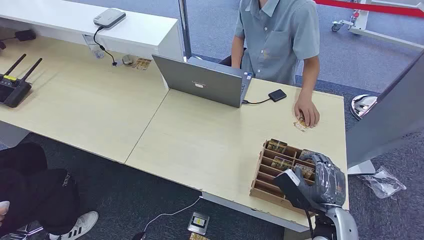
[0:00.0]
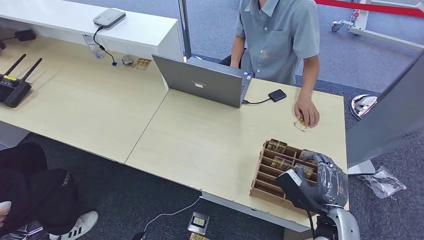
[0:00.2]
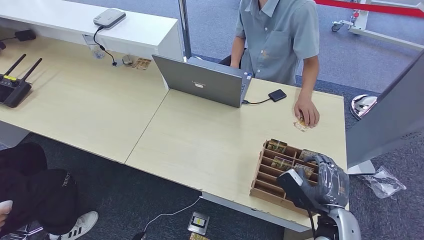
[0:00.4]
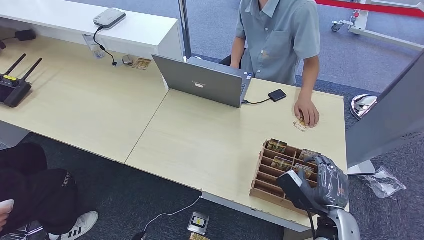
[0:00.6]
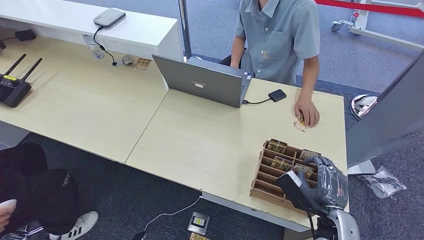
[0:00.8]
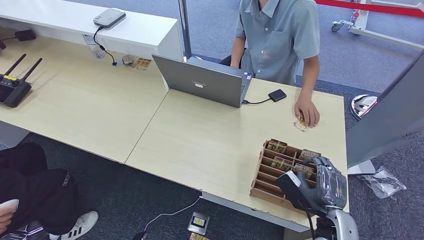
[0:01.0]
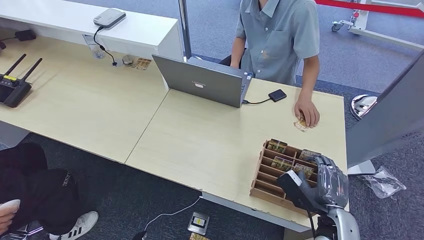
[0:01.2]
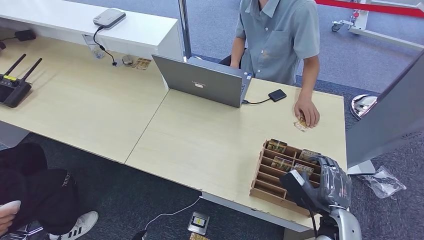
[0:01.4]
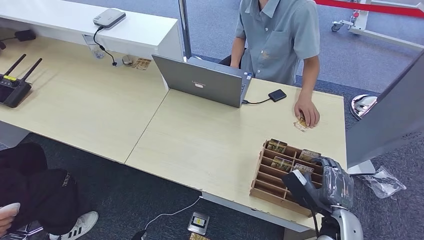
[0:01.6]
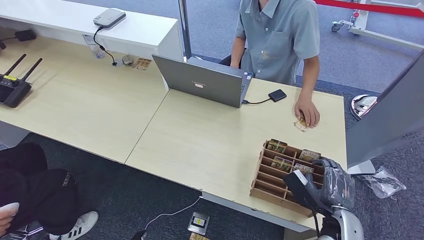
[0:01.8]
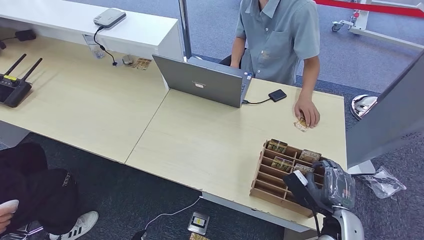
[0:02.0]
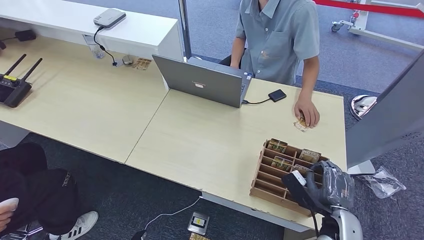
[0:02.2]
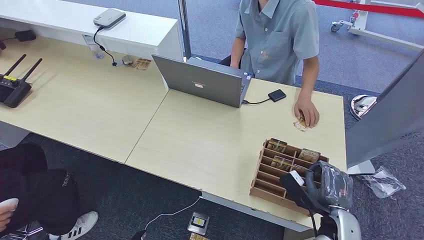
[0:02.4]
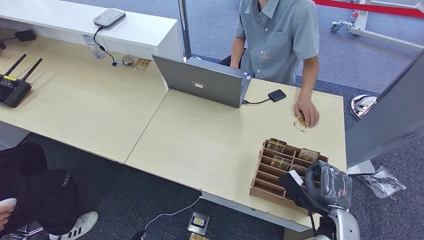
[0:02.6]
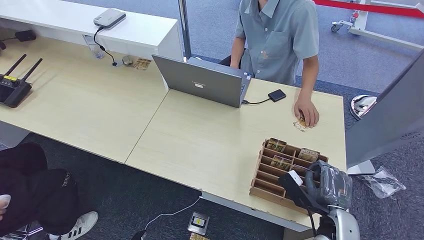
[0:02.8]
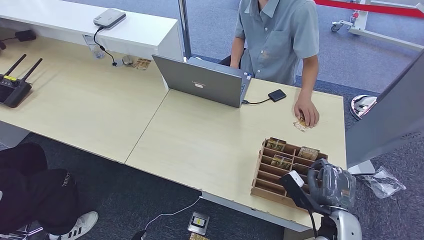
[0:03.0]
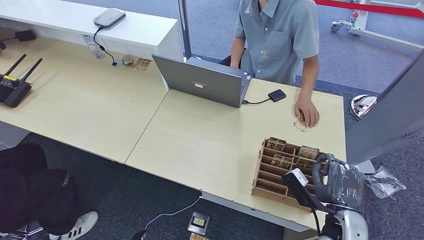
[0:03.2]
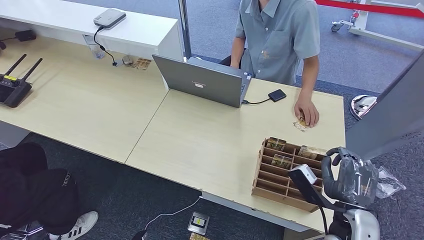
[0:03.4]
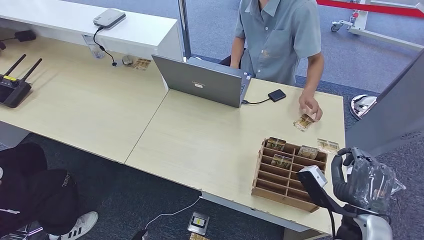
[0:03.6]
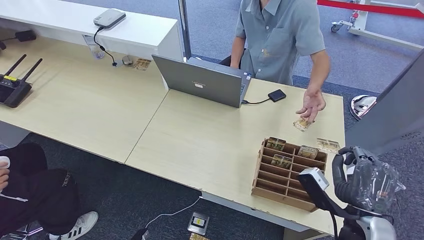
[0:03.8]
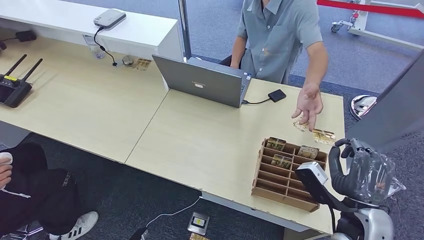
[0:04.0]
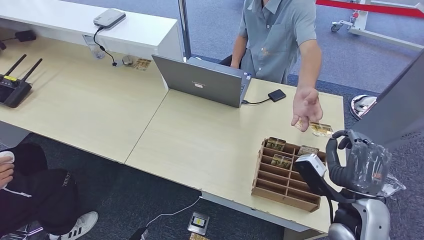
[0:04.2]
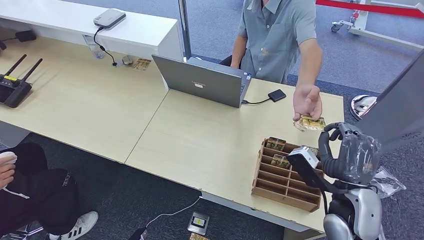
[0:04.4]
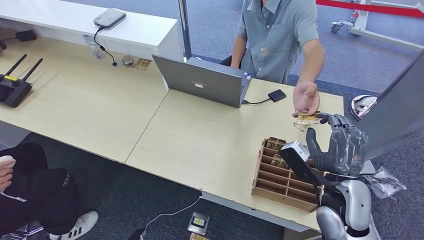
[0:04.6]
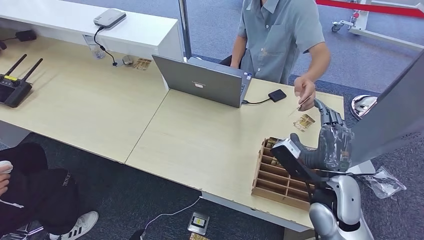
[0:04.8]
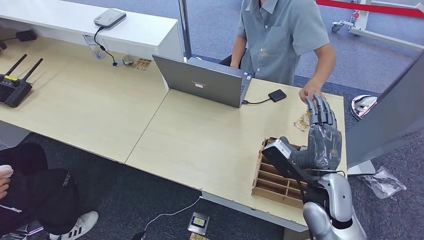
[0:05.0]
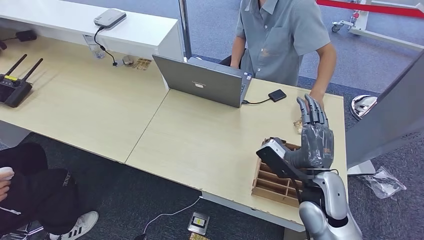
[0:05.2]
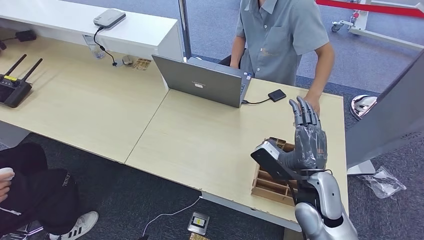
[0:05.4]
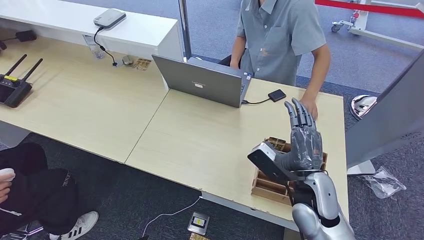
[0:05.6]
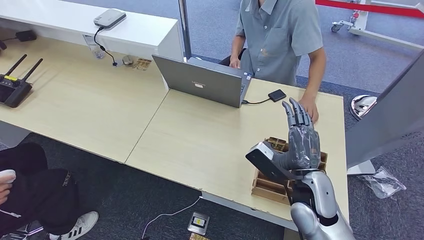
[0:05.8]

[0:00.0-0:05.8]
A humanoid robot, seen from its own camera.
Step, 0:00.0 to 0:03.4: Pick up the room card from the card holder.
Step, 0:03.6 to 0:05.8: Hand the room card to the target.
0:01.4 to 0:02.8: The hands make only small movements.
0:02.8 to 0:04.4: The right hand shifts some 10 cm upward, forward and to the left.
0:04.4 to 0:05.8: The left hand travels to the right by roughly 5 cm.
